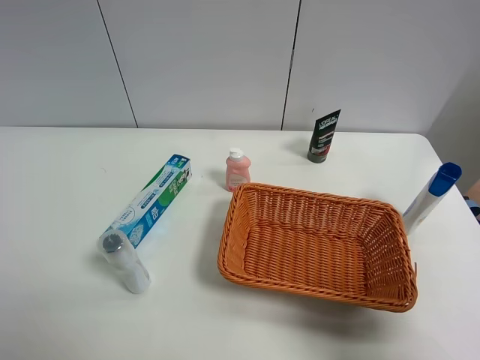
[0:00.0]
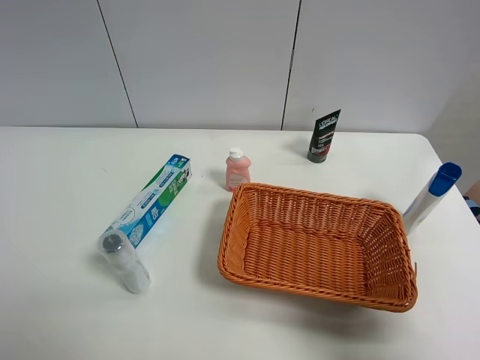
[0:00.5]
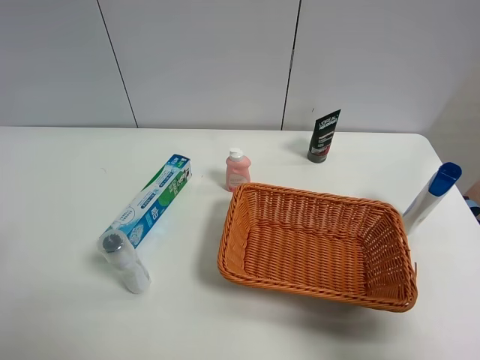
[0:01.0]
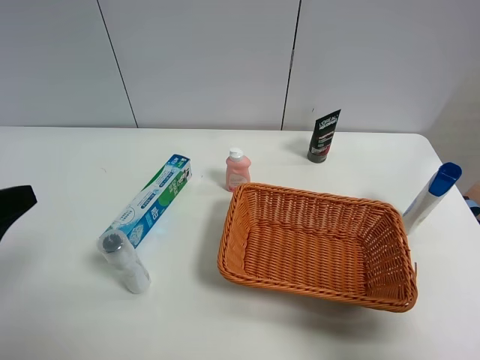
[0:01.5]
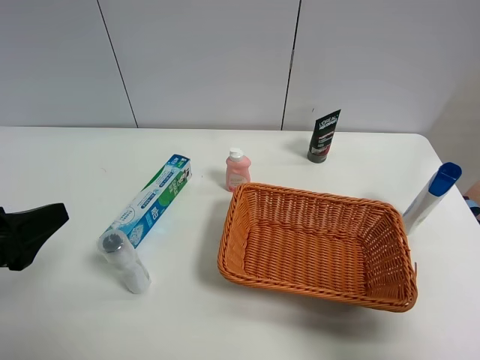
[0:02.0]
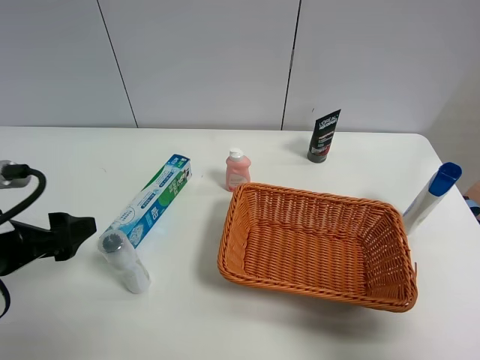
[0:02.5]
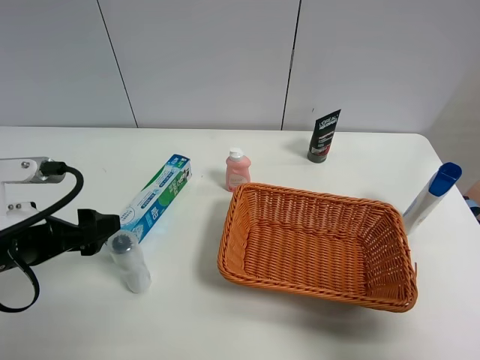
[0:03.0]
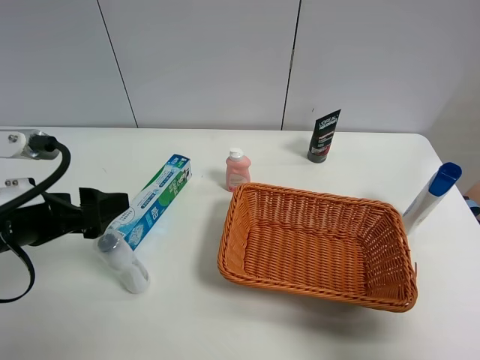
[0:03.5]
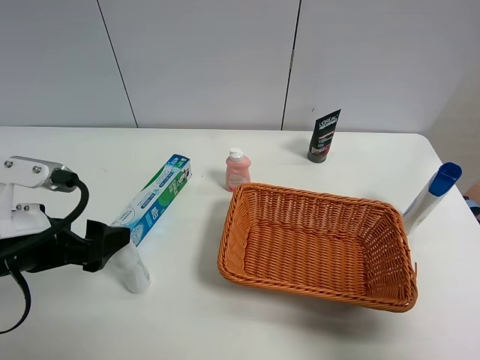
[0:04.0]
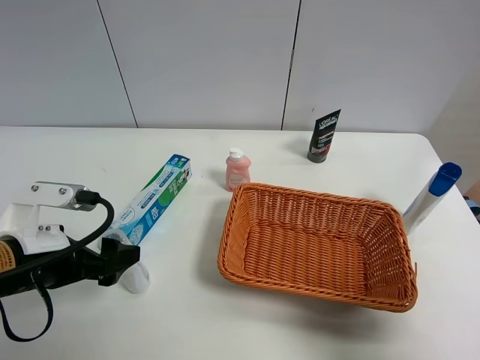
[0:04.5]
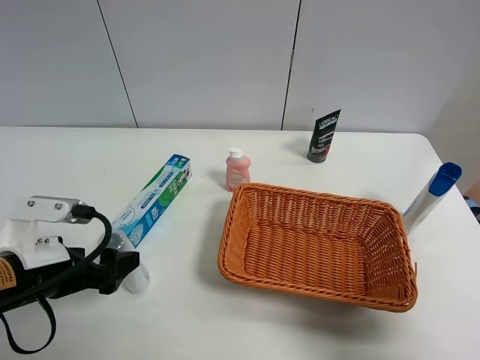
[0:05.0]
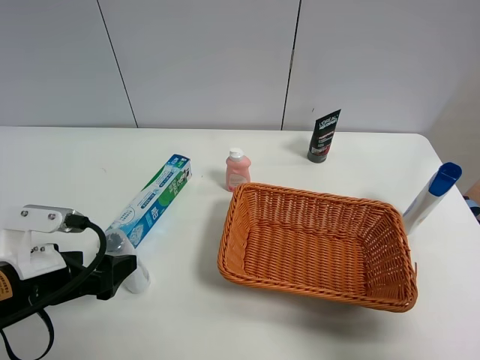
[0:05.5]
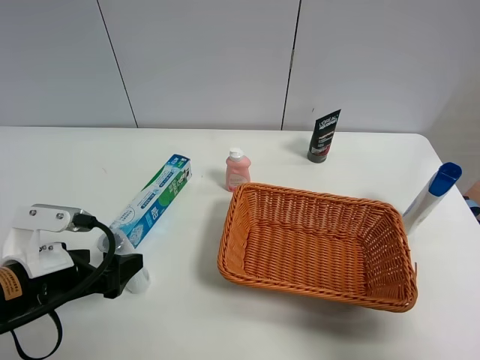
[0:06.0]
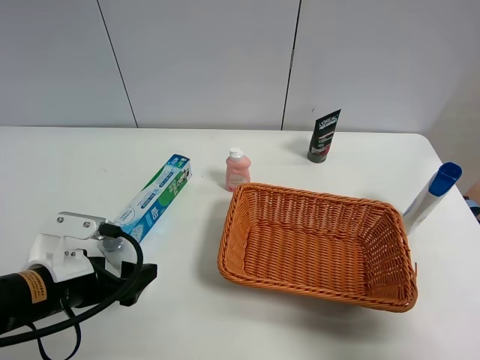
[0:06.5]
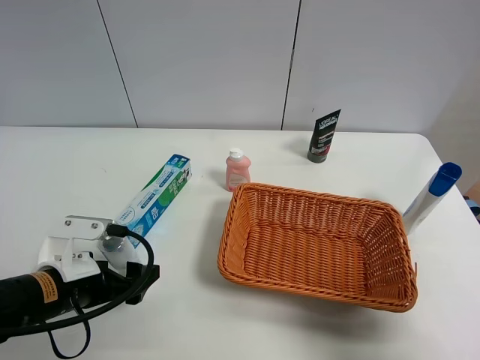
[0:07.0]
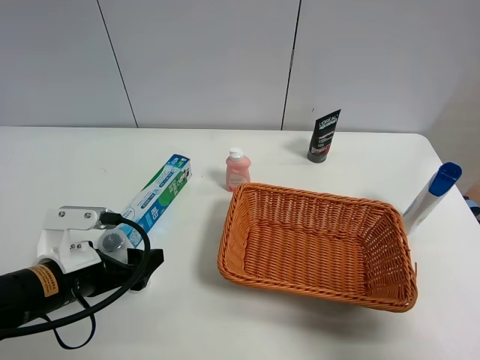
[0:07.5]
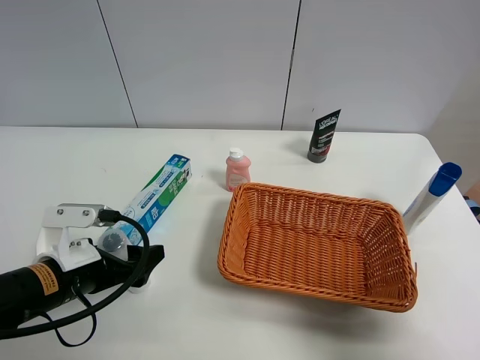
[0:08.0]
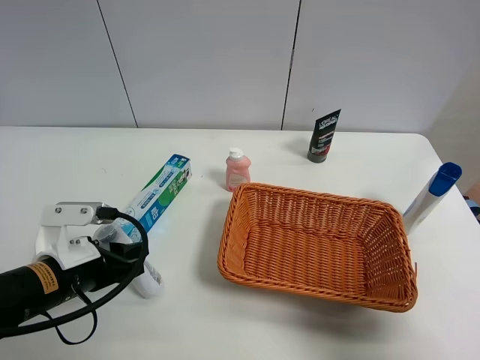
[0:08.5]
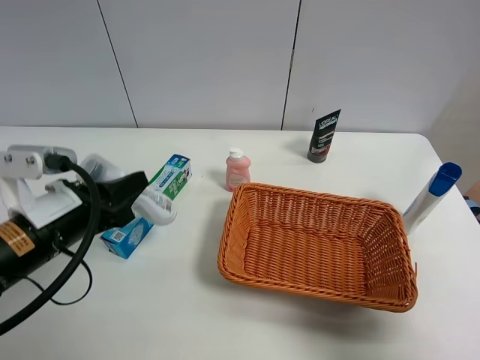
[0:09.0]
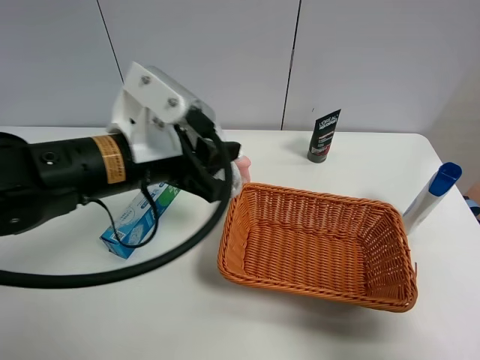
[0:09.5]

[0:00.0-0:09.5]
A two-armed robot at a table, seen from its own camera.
Task of the whole recording: Place the object closest to the toothpaste in the basket.
Step, 0:00.0 to 0:08.0: Grasp the cleaning agent with left gripper.
0:00.0 to 0:02.0: The left gripper is displaced forward by about 10 cm.
0:02.0 to 0:04.0: The left gripper ends up roughly 5 cm from where it was.
0:04.0 to 0:05.5: The left gripper shifts approximately 5 cm downward.
0:05.5 to 0:07.5: There are only small adjustments of the grippers.
0:07.5 to 0:09.5: The left gripper moves upward, to the right and forward, some 20 cm, and closes up.

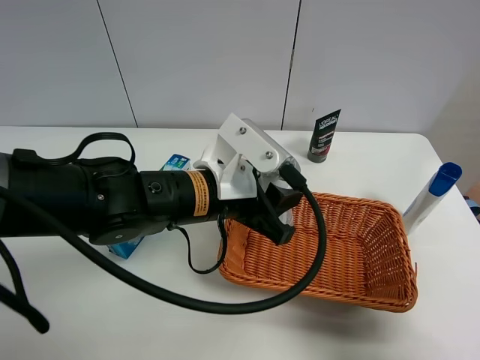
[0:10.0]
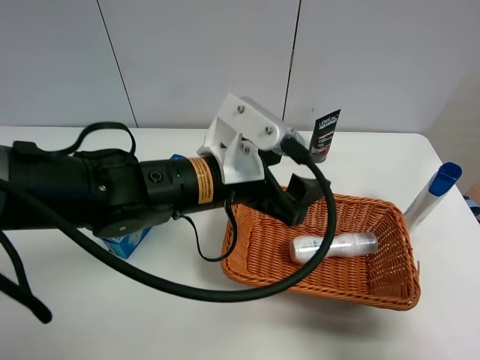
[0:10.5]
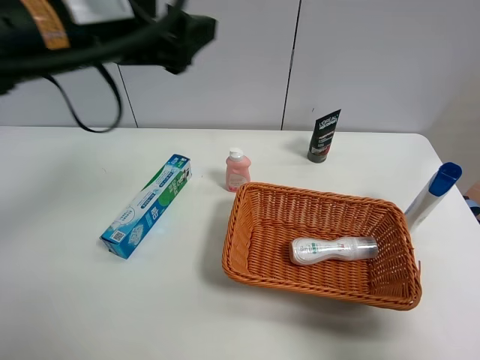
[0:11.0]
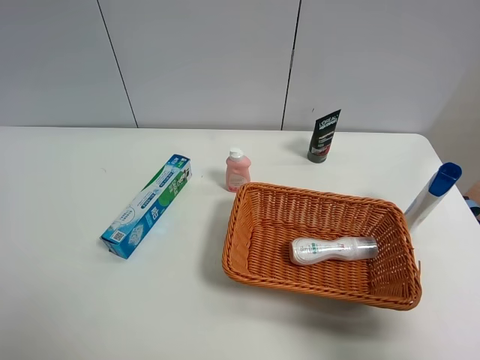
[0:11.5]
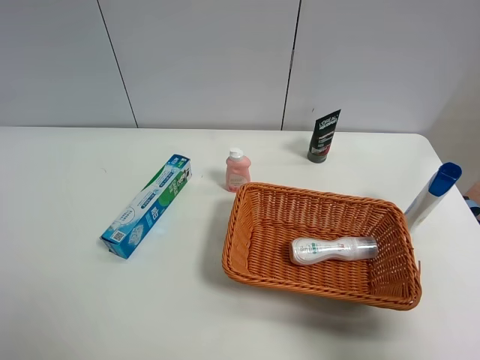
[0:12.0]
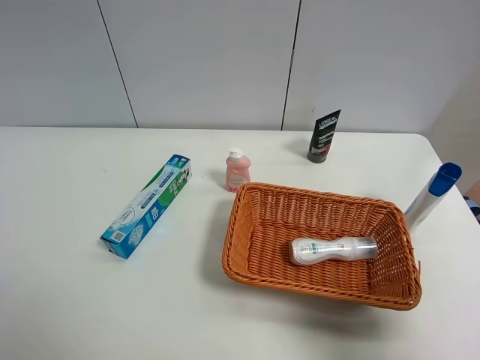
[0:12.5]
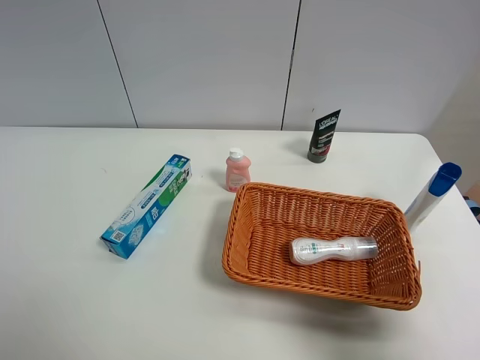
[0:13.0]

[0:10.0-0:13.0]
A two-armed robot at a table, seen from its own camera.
Task of the whole recording: Place the object closest to the toothpaste in the basket.
0:10.0 to 0:11.5: The left gripper travels to the left and upward by approximately 35 cm, and opens its fingers.
